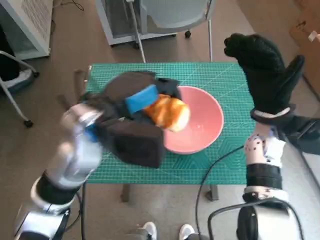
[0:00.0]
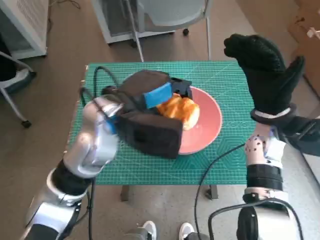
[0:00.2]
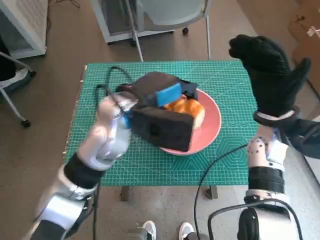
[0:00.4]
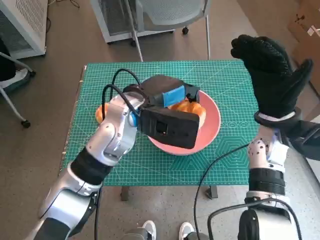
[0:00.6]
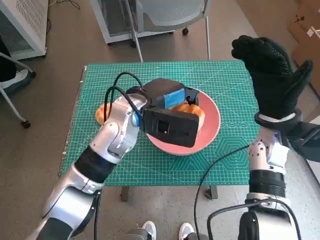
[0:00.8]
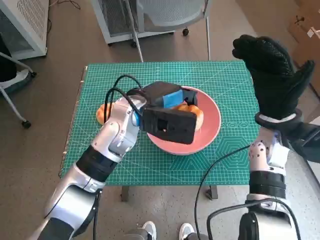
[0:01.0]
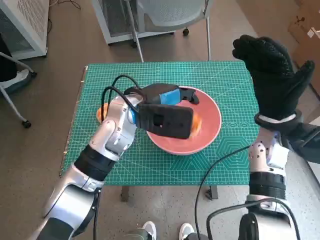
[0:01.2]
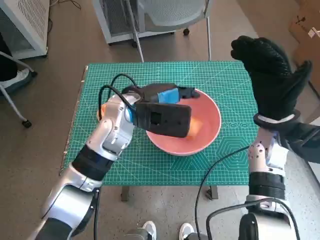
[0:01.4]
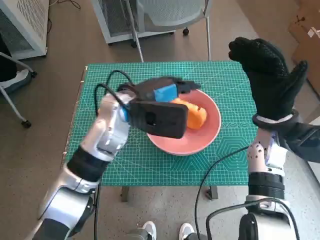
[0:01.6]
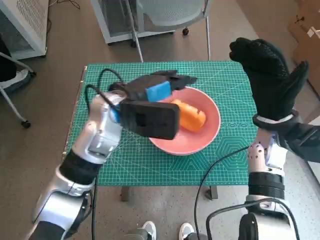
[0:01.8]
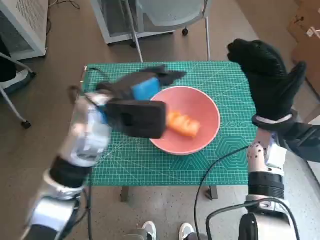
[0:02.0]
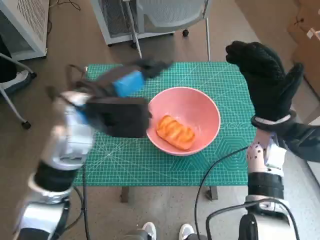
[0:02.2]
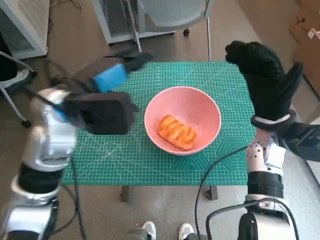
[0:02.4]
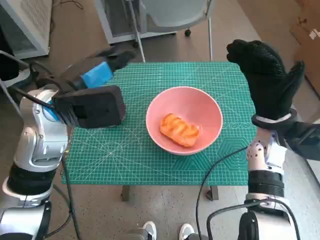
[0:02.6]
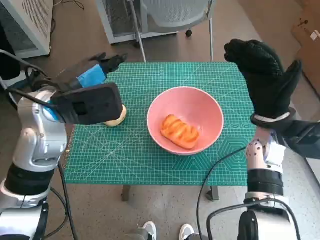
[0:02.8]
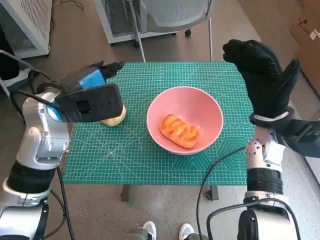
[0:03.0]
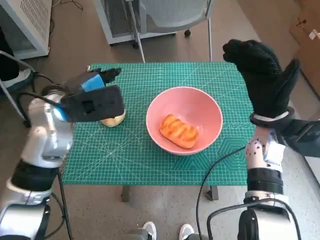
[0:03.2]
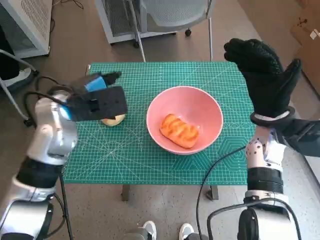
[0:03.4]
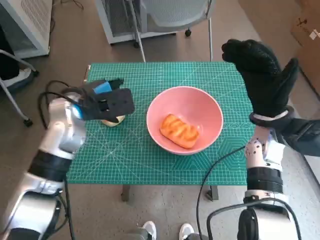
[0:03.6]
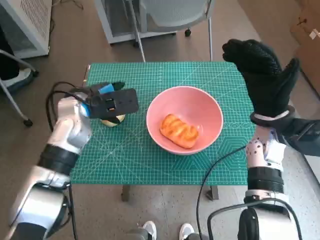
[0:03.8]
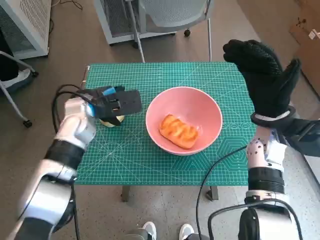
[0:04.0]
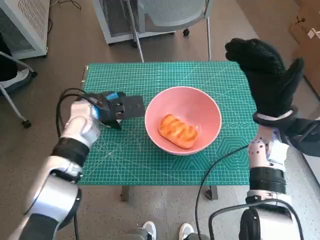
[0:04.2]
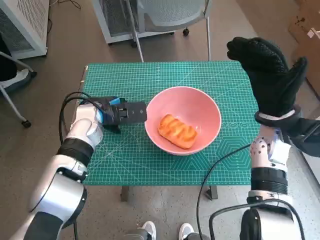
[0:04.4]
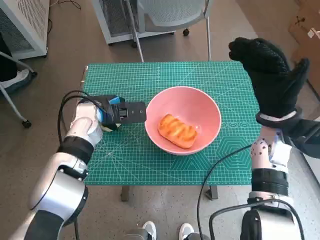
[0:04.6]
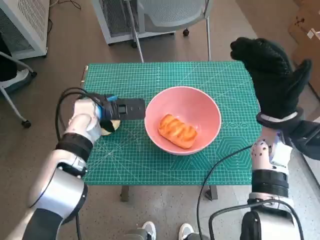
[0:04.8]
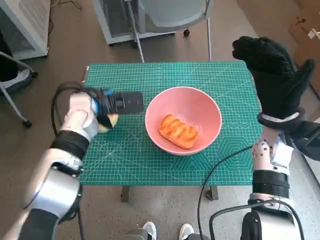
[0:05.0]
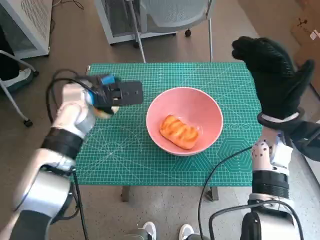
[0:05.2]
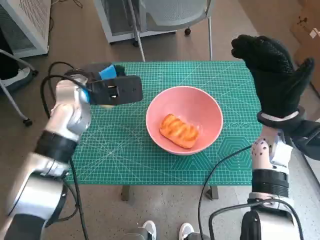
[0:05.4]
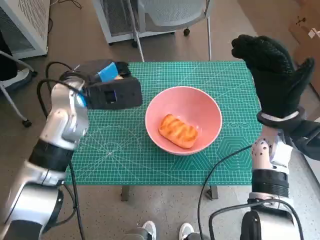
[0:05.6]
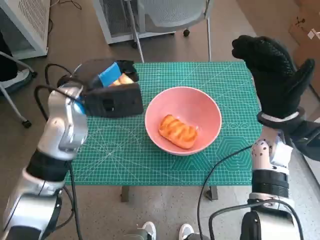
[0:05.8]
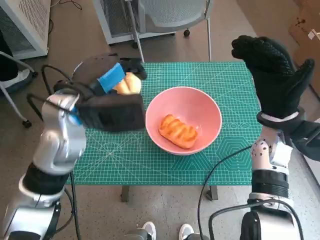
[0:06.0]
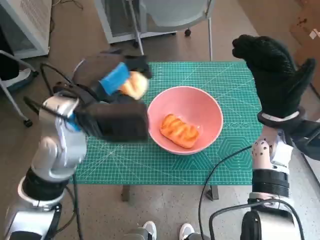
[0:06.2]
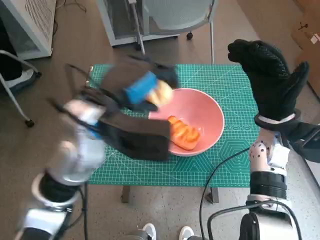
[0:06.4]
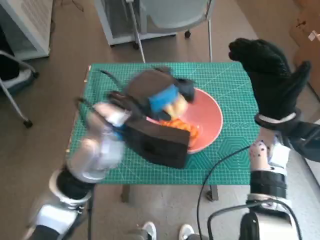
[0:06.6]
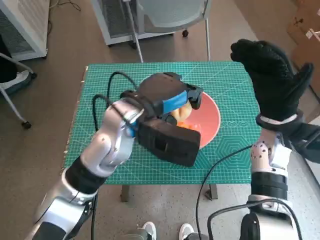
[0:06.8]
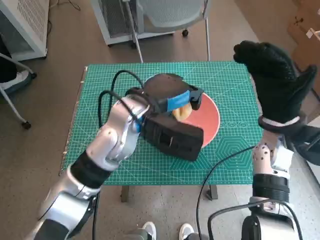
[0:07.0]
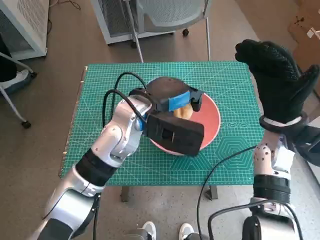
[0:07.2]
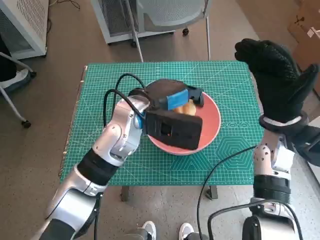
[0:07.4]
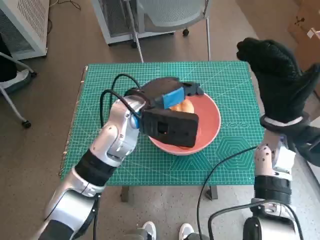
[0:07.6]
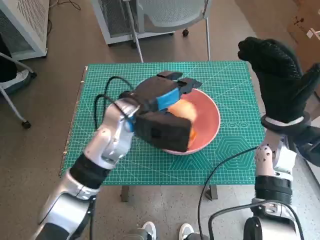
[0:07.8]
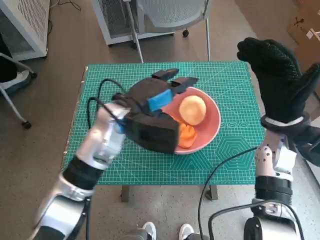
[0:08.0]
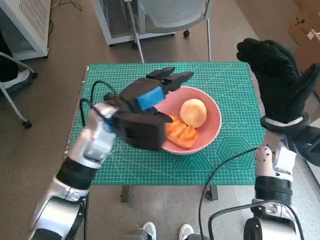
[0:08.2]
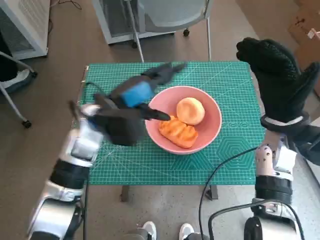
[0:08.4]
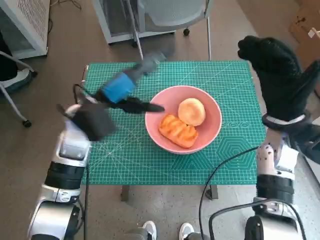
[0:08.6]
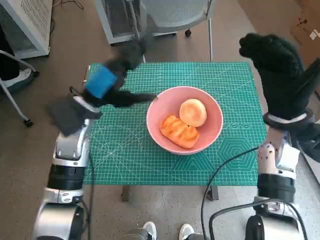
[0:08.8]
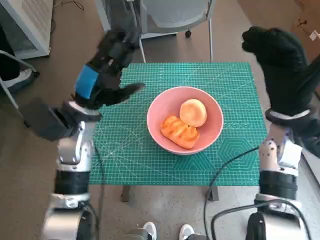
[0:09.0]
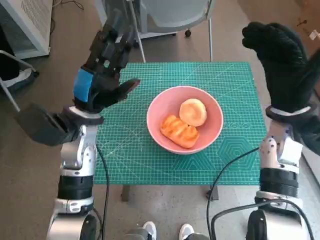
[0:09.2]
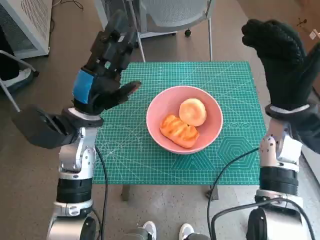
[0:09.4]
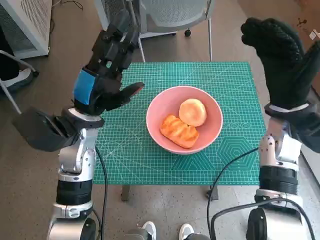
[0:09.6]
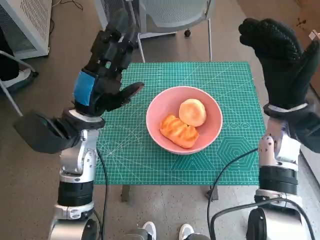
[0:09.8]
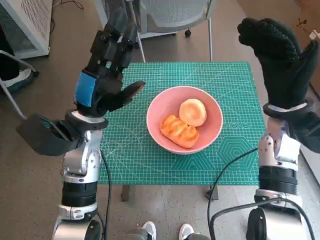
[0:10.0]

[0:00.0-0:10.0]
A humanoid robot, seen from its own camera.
Step, 0:00.0 to 0:01.4: Place the long bread in pink bowl with left hand.
Step, 0:01.6 to 0:04.6: Grasp the round bread with left hand.
Step, 0:04.8 to 0:07.6: Place the round bread in pink bowl with left hand.
0:00.0 to 0:01.4: The left hand travels forward by roughly 5 cm.
0:01.4 to 0:02.8: The left hand shifts about 10 cm to the left and upward.
0:02.8 to 0:04.2: The left hand is displaced downward and forward by approximately 10 cm.
0:04.2 to 0:05.8: The left hand heads upward, covering approximately 10 cm.
0:05.8 to 0:07.2: The left hand heads to the right, covering some 10 cm.
0:07.2 to 0:08.6: The left hand moves to the left, some 10 cm.

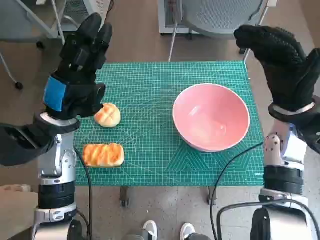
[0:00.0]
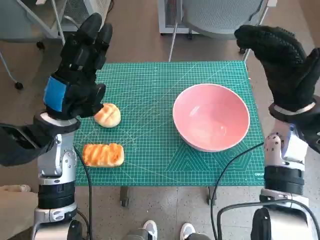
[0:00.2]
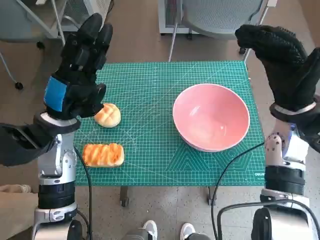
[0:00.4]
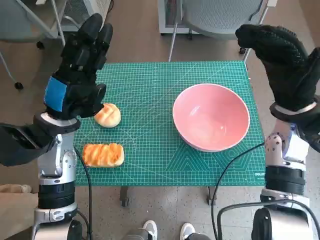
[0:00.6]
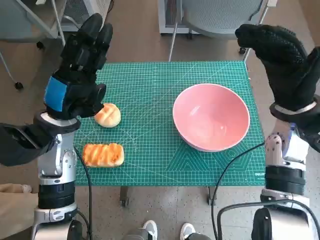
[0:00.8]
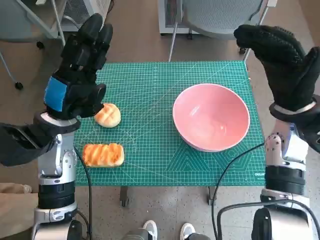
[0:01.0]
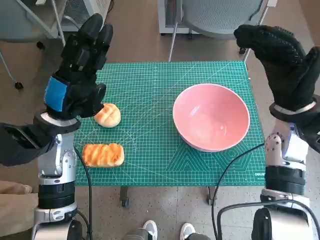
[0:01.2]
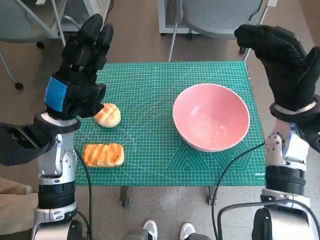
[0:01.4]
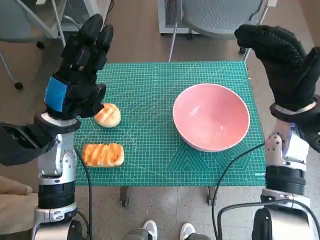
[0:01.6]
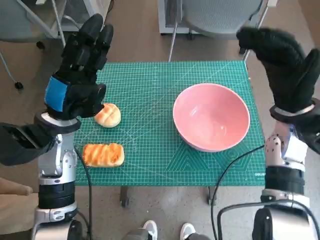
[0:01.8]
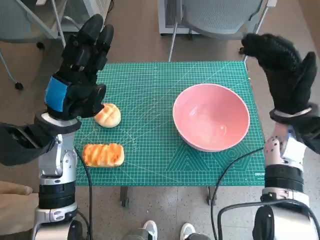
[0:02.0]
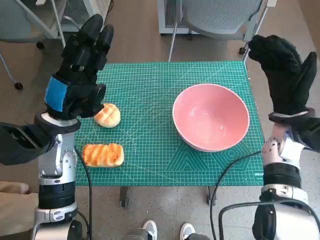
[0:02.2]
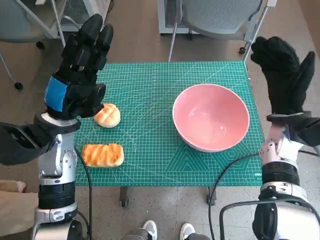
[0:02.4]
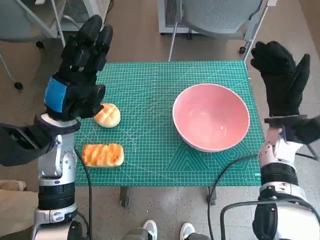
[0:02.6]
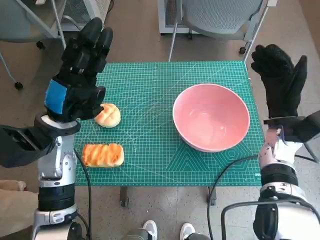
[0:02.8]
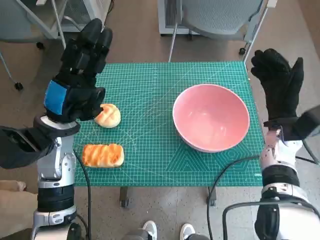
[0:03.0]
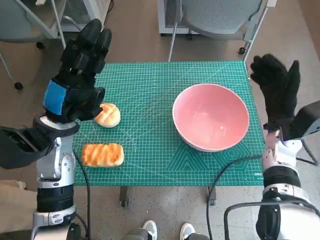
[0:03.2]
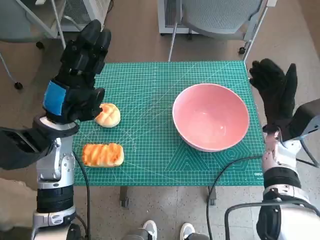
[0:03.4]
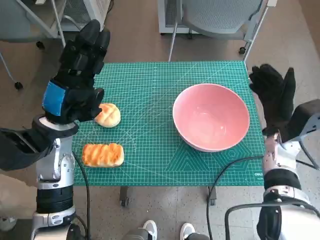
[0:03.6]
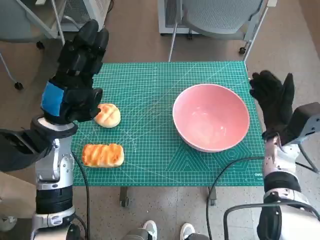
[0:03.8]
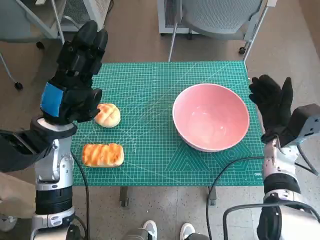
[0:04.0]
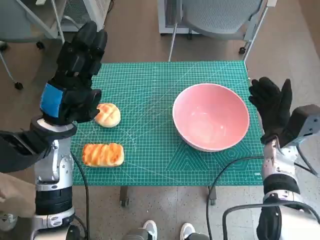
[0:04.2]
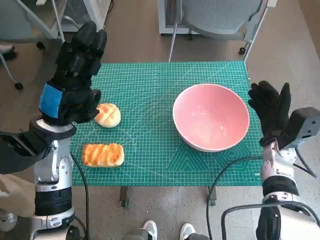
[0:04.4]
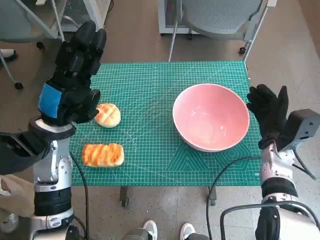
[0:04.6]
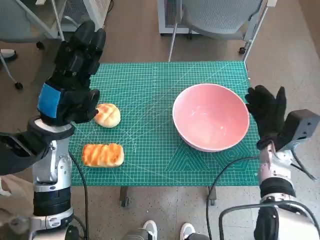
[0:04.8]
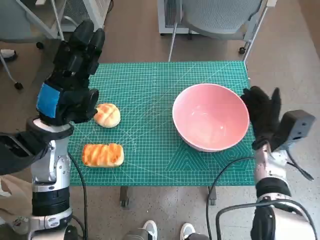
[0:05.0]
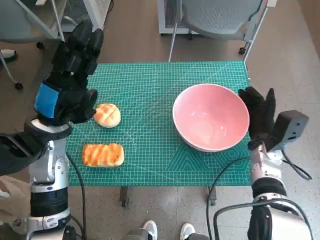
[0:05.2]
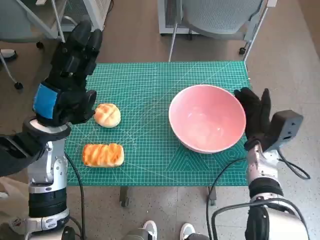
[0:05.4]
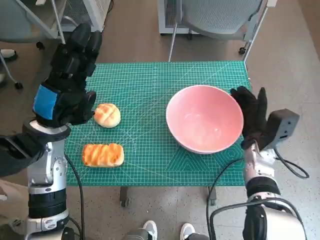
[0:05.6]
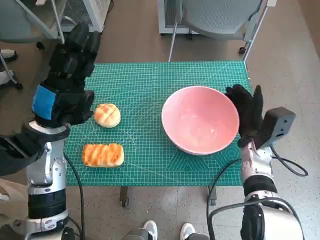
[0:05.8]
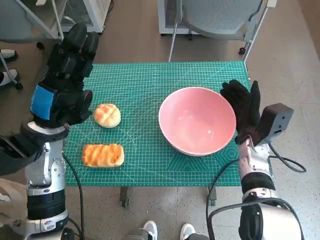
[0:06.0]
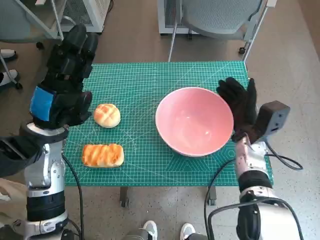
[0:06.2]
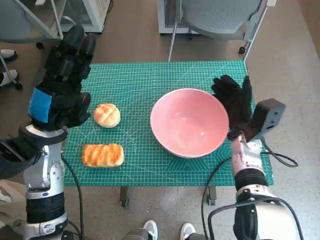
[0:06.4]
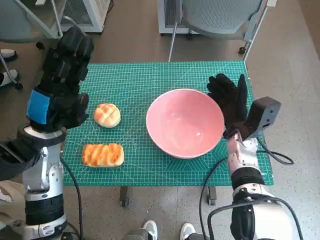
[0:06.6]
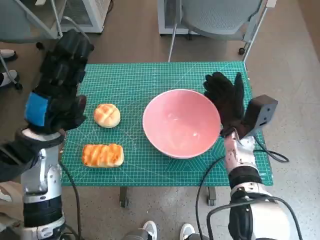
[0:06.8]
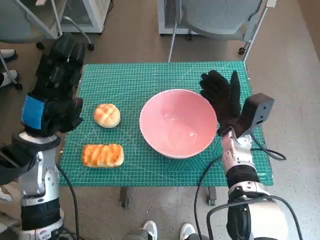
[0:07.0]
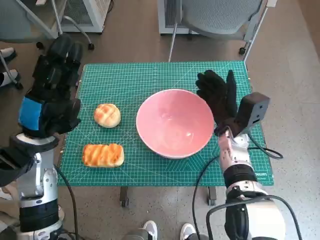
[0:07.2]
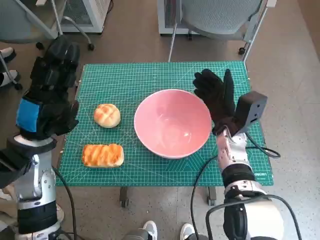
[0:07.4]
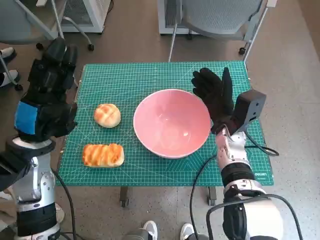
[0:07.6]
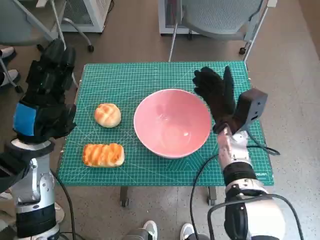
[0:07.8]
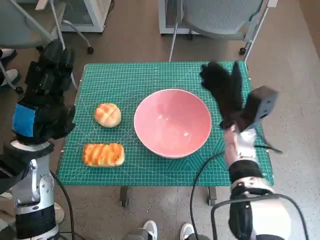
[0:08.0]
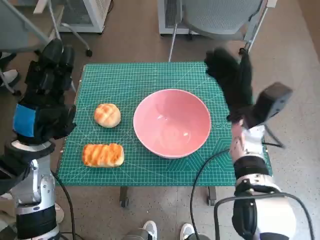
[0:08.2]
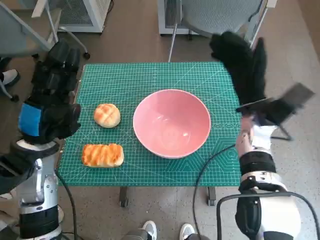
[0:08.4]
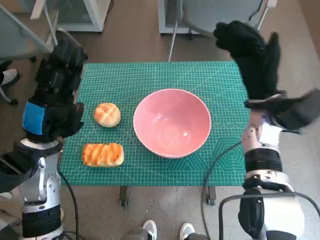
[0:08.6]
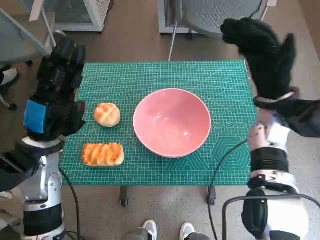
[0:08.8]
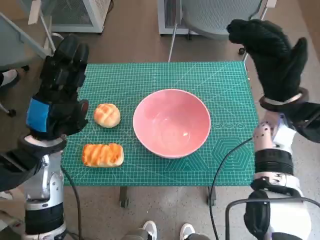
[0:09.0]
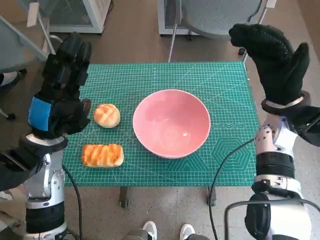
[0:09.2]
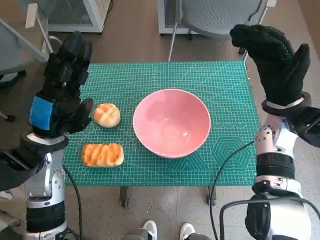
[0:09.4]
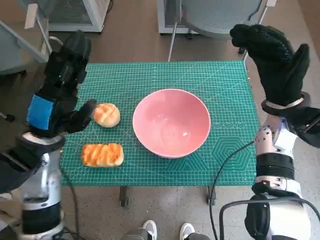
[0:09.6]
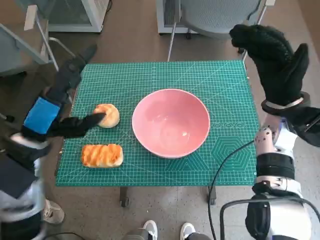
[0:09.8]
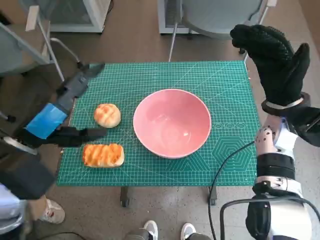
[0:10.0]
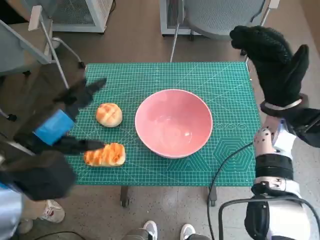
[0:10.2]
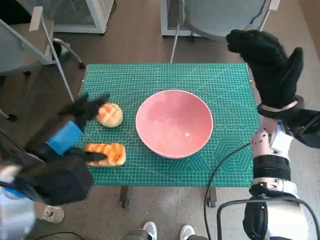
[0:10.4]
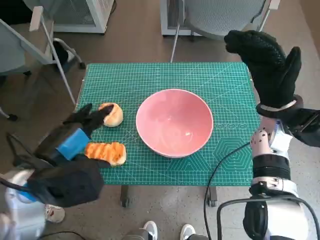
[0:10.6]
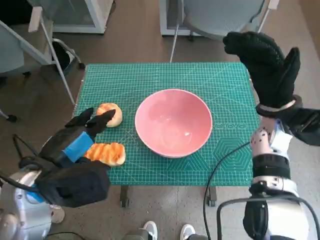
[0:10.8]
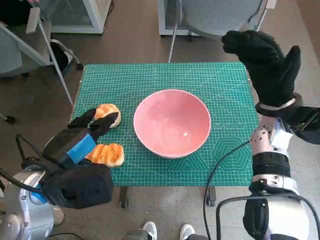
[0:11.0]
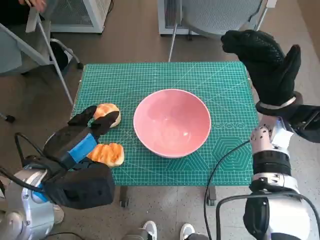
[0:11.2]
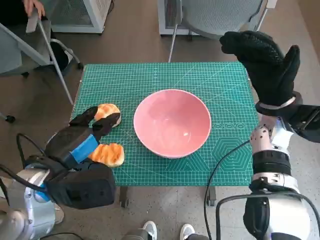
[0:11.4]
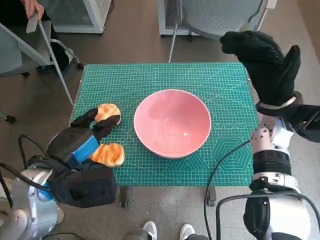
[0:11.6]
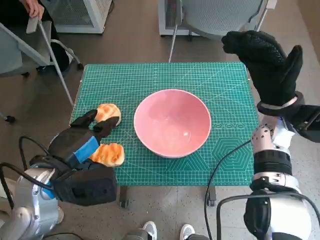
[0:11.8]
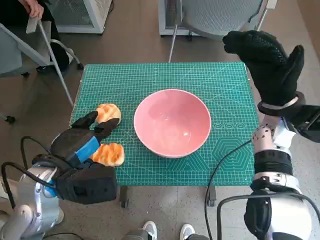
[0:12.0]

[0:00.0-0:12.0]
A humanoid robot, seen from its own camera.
Step, 0:00.0 to 0:07.8: Move the pink bowl to the center of table with right hand.
0:01.6 to 0:03.0: The right hand shifts approximately 10 cm downward.
0:04.4 to 0:06.0: The right hand travels to the left by approximately 5 cm.
0:06.0 to 0:07.6: The right hand travels to the left by roughly 5 cm.
0:07.6 to 0:09.0: The right hand heads upward and to the right, covering approximately 10 cm.
0:09.0 to 0:10.4: The left hand heads backward, covering approximately 5 cm.
0:10.4 to 0:12.0: The left hand heads downward, covering about 5 cm.
